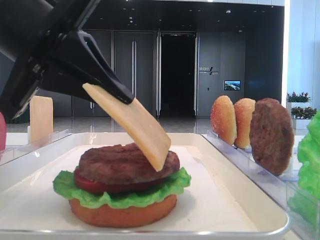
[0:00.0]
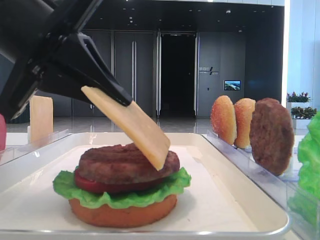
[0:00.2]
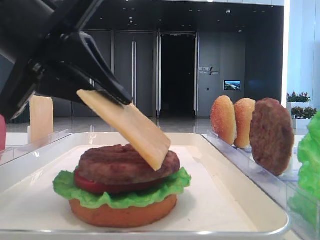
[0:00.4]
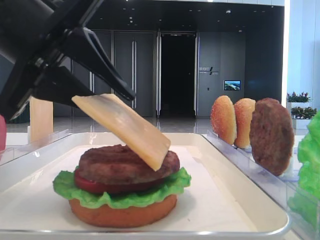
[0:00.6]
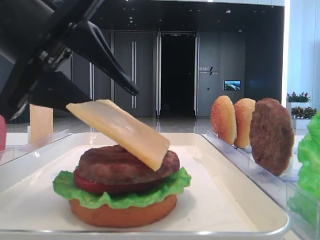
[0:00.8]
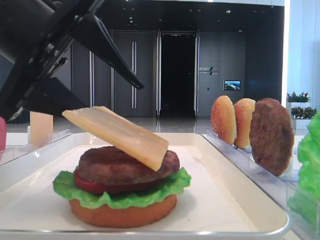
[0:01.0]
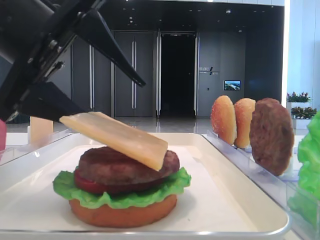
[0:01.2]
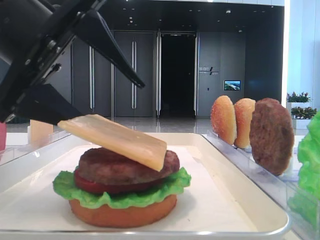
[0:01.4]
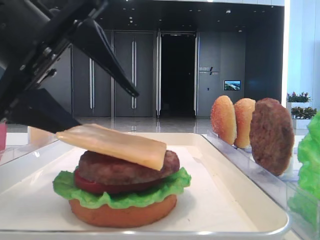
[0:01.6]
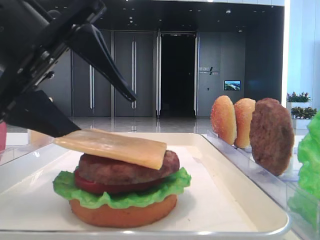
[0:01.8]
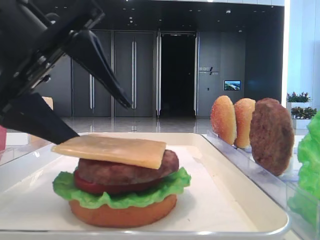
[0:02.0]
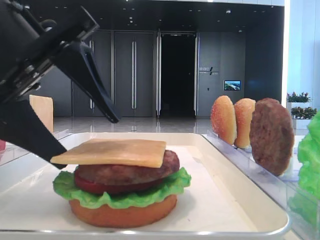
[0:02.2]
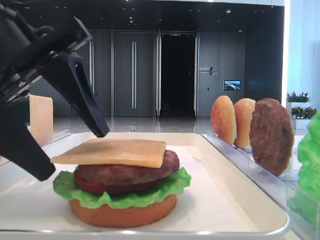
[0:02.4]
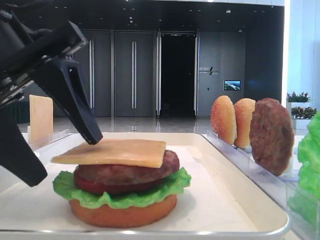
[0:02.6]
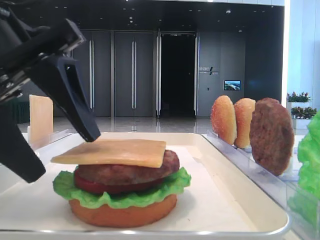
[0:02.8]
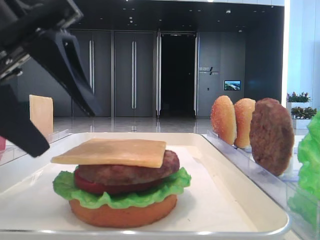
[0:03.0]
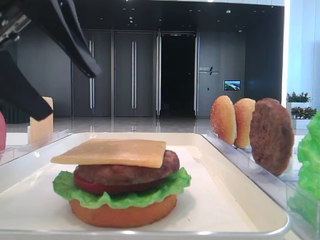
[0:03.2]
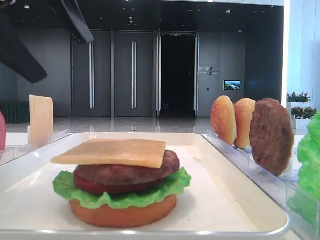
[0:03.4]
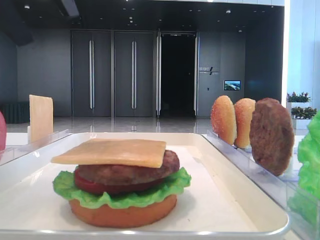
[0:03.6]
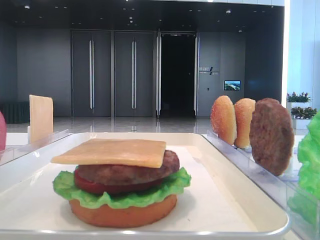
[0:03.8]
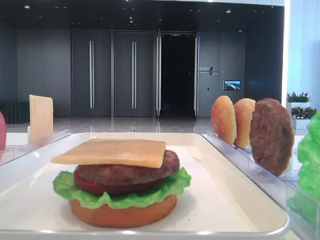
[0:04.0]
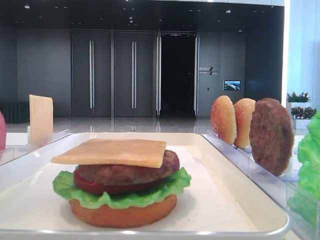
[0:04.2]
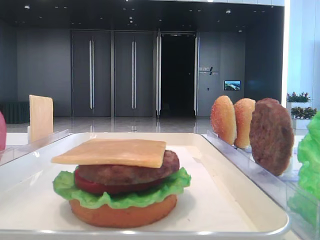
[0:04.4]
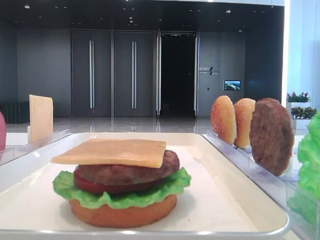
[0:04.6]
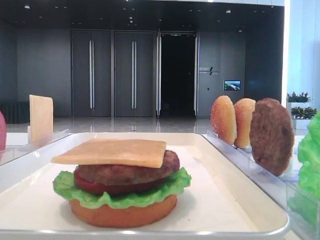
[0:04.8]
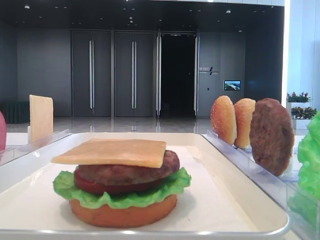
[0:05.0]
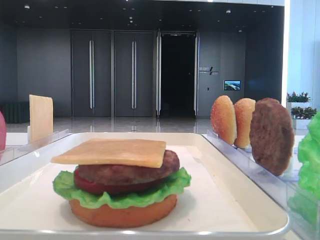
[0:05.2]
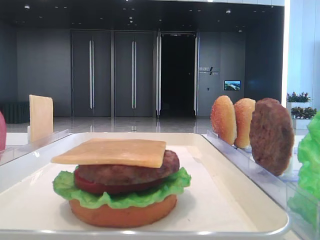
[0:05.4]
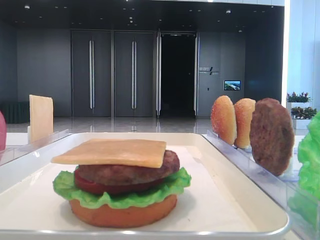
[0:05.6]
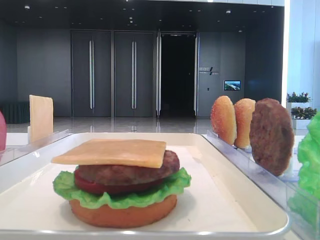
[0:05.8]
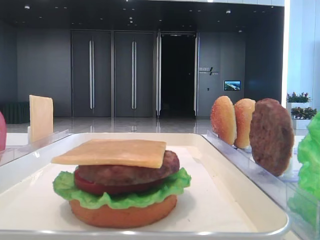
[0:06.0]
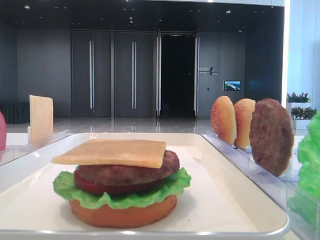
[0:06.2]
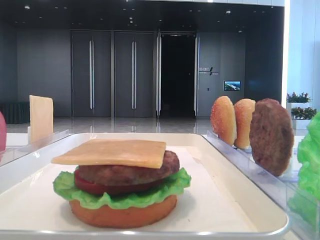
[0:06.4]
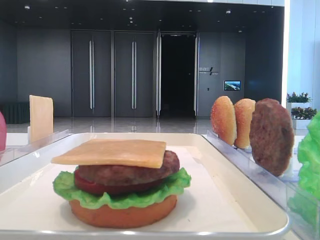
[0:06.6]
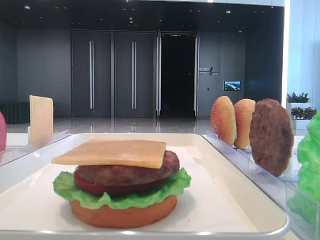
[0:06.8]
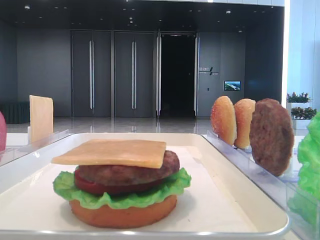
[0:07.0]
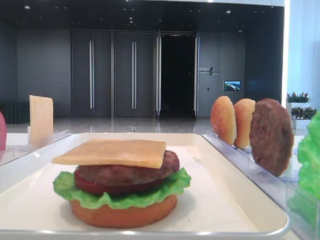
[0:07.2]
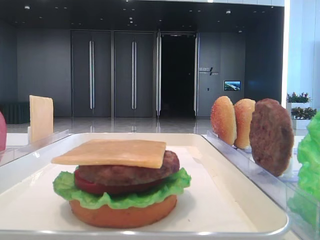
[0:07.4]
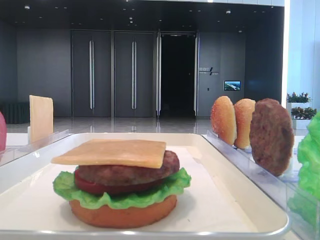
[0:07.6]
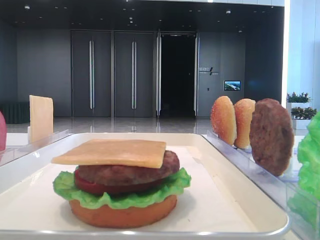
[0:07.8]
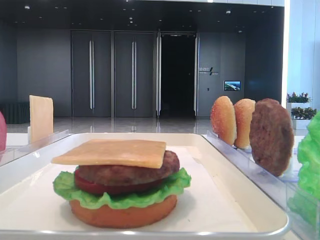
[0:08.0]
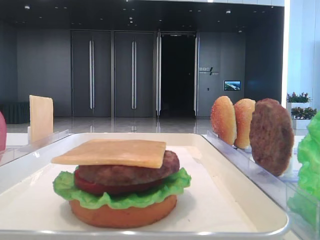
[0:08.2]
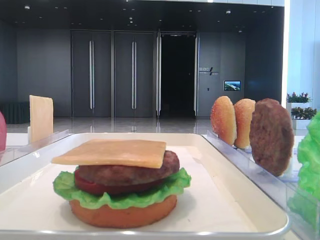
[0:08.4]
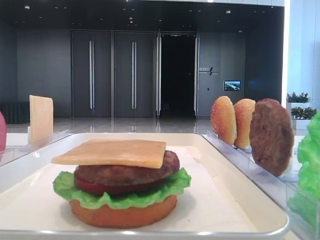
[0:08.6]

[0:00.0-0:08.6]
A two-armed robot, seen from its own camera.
Step, 0:00.0 to 0:02.2: Place the cheese slice on the patty with the left hand.
0:00.0 to 0:01.4: The left gripper opens its fingers.
0:01.4 to 0:02.8: The grippers stay close to where they were, moving slightly.
0:02.8 to 0:04.4: The left gripper goes about 20 cm upward.

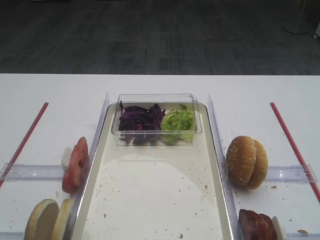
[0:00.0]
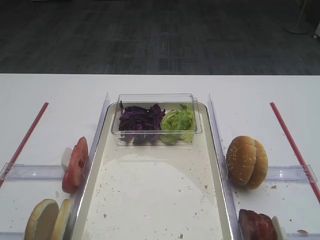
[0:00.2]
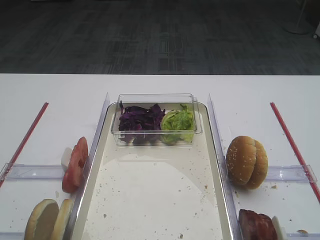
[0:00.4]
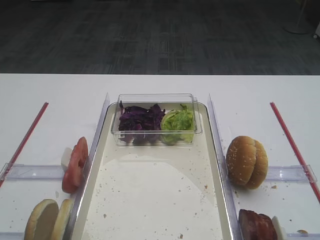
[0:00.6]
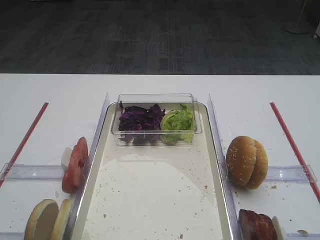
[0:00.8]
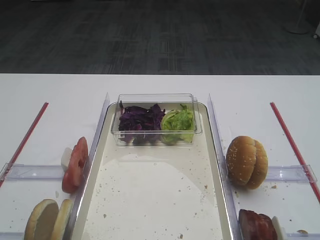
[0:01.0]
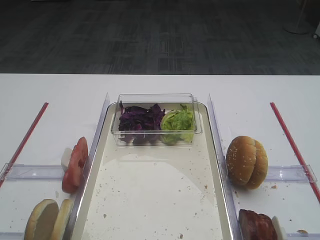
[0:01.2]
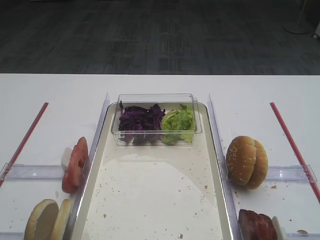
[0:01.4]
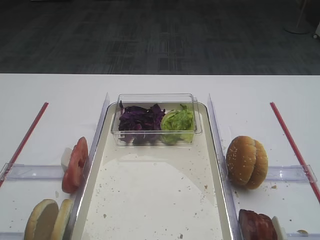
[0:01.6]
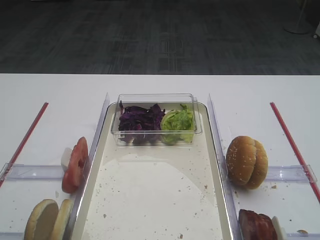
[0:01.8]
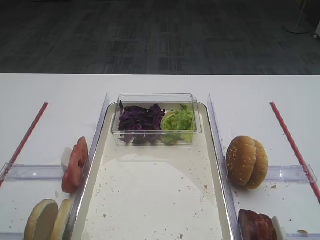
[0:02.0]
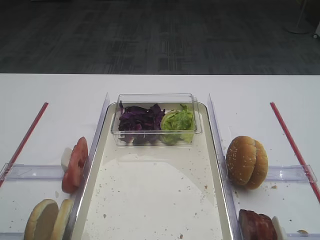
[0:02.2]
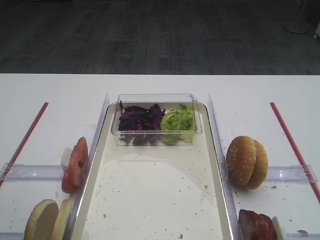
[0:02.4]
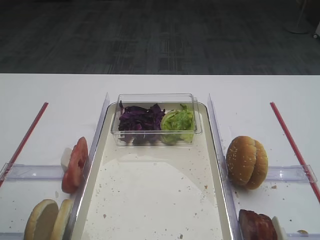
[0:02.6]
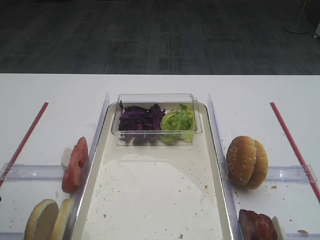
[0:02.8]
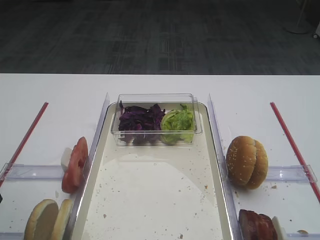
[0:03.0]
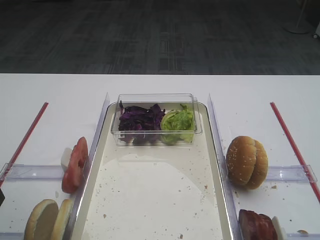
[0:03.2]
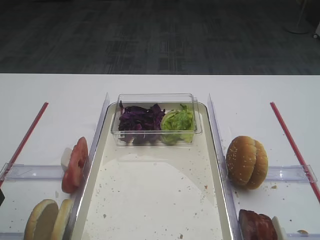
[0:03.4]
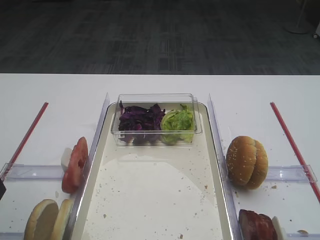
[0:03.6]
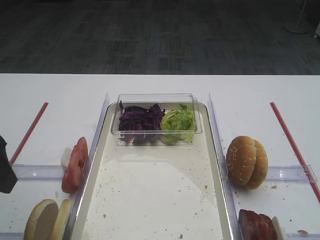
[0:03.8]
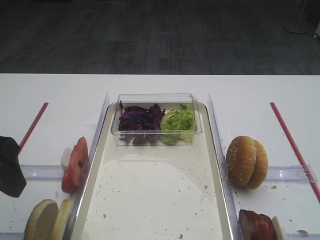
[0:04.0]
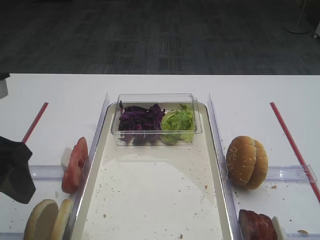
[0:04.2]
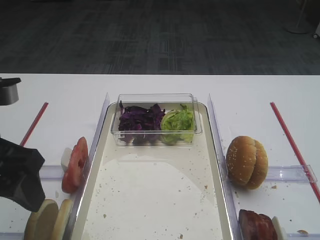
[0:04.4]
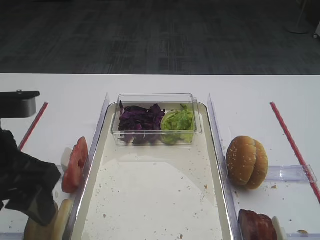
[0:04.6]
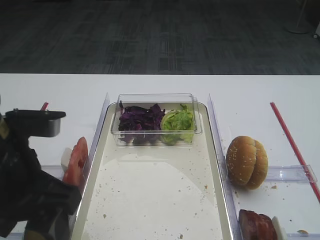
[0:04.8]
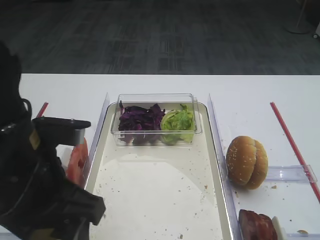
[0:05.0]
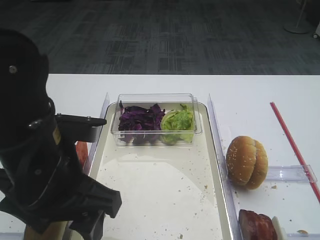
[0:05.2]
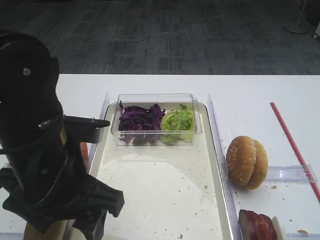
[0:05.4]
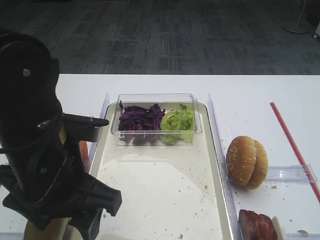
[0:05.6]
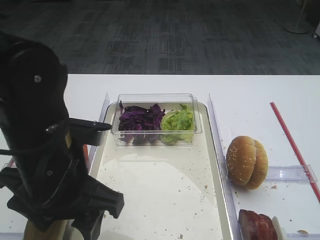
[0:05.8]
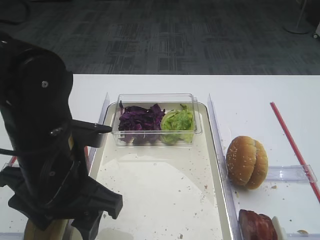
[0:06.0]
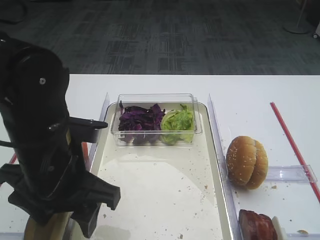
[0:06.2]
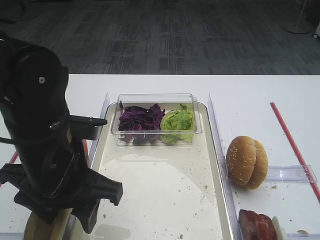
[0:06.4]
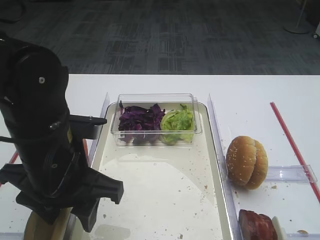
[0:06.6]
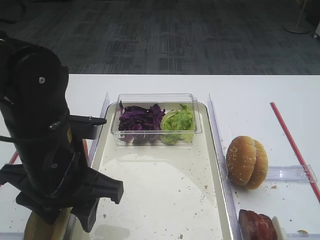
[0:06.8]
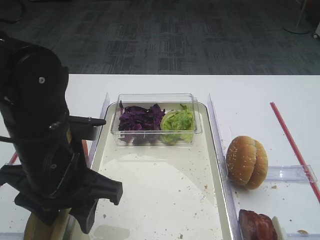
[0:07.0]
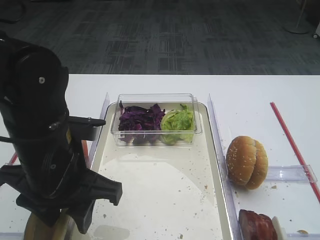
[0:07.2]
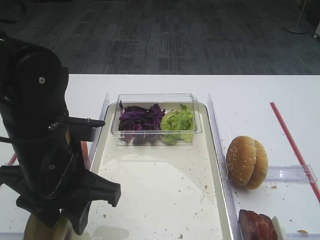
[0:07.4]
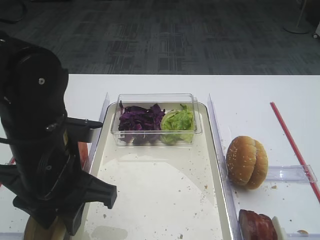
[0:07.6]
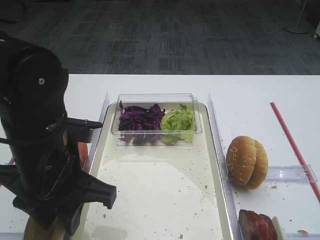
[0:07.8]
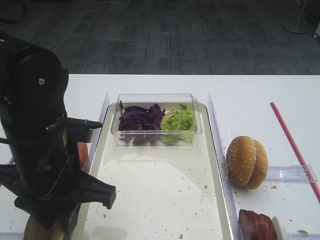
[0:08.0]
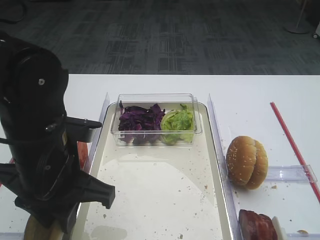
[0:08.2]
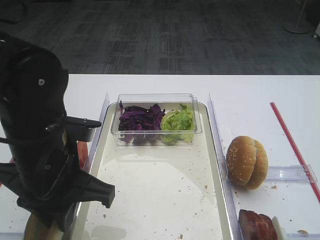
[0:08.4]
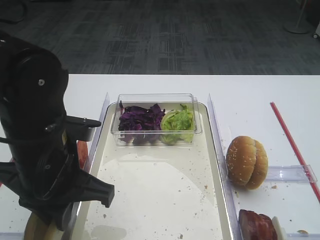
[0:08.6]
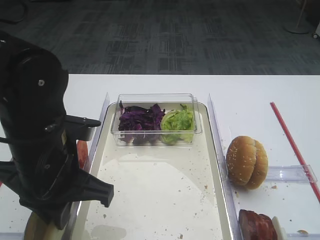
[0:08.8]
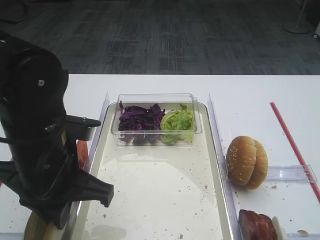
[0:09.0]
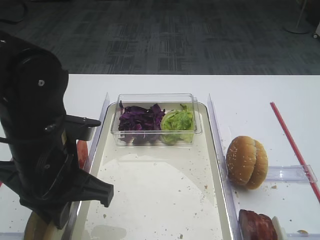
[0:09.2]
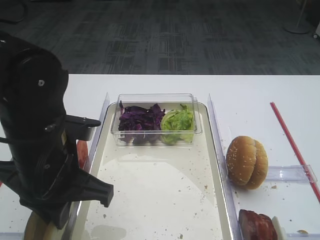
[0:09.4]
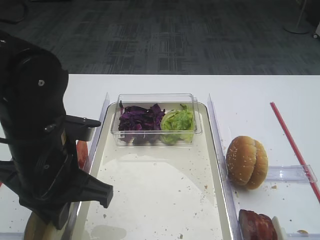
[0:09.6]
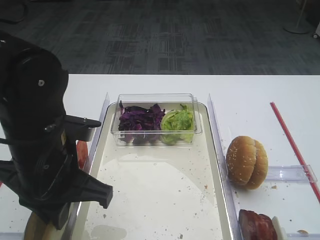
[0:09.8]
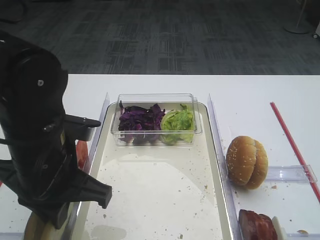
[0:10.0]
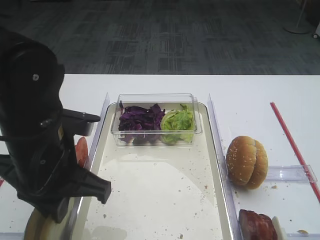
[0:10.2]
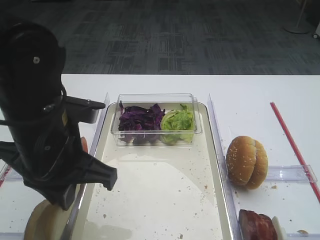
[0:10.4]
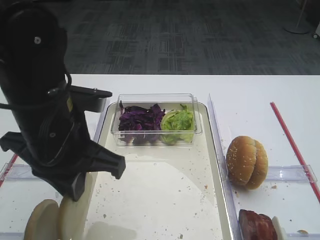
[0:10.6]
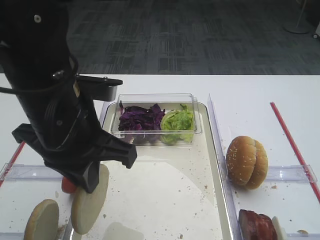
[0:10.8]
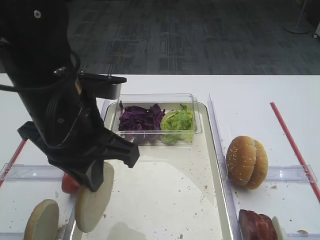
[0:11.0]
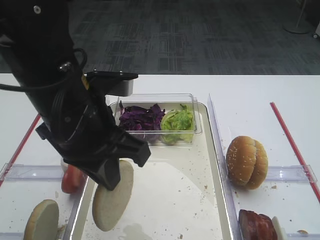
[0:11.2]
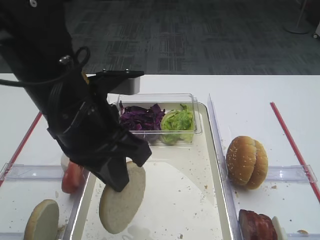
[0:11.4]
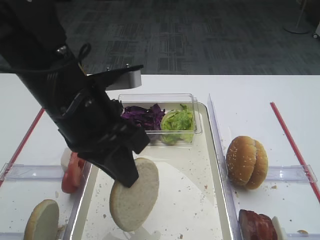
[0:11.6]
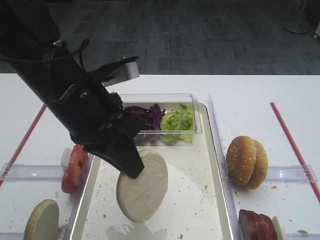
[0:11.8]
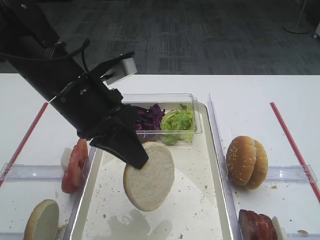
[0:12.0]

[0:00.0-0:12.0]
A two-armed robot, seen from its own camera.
Step, 0:00.0 to 0:10.4: Pick up the bread slice with the left gripper.
0:03.0 to 0:04.4: The left gripper moves to the right, roughly 5 cm.
0:04.4 to 0:06.0: The left gripper moves to the right and downward, roughly 10 cm.
0:06.0 to 0:07.6: The left gripper closes.
0:07.6 to 0:09.0: The left gripper closes its fingers.
0:09.0 to 0:10.4: The grippers move only a little.
0:10.4 to 0:12.0: The left gripper moves some 5 cm.

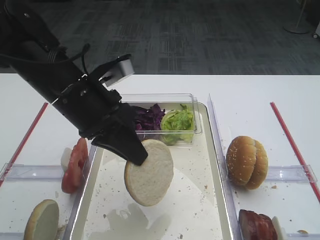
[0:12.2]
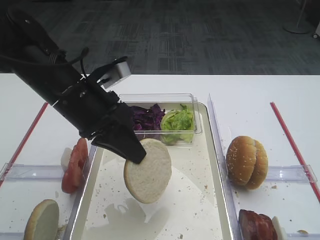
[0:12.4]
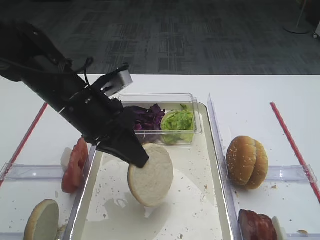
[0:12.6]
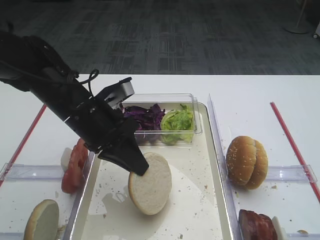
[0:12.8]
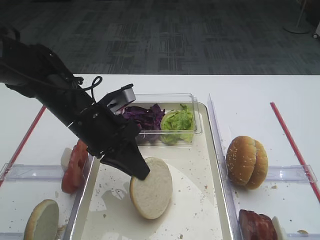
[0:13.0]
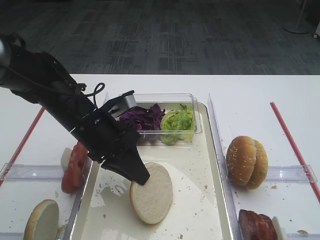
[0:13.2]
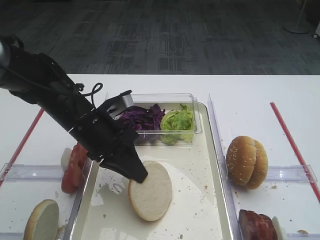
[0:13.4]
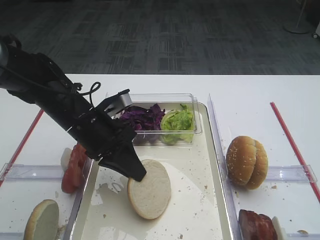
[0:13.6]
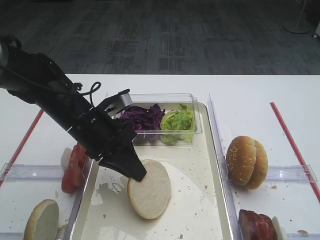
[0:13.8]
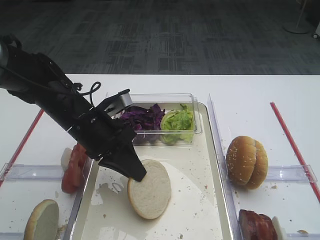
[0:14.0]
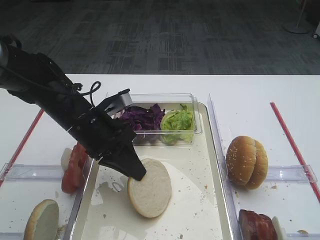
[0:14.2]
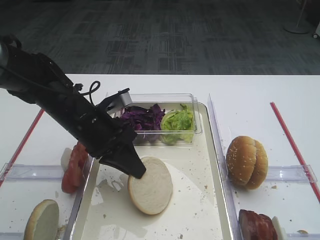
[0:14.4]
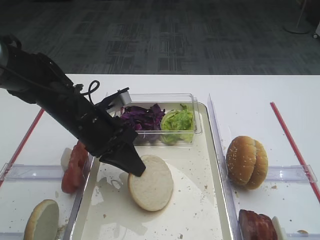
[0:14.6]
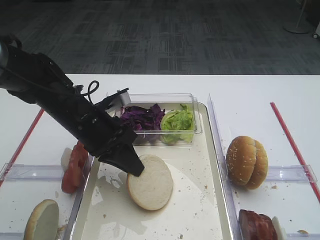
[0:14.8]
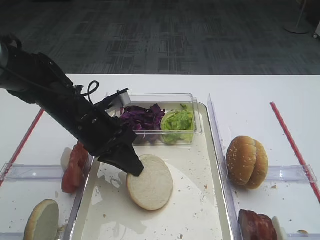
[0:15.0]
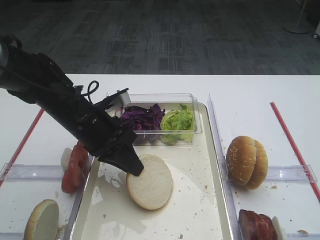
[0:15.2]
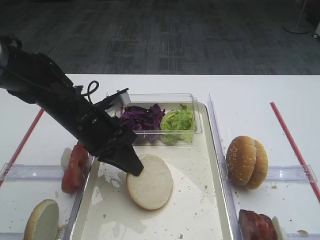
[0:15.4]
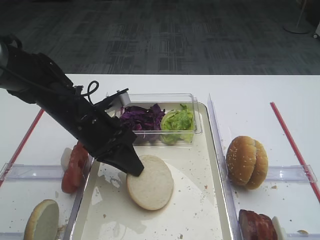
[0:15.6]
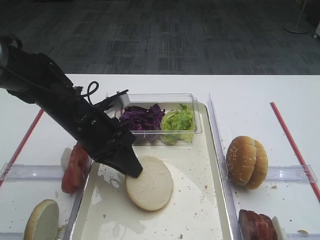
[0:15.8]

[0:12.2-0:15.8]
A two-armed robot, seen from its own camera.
0:12.2 to 0:14.0: The left gripper travels downward by some 10 cm.
0:14.0 to 0:15.8: There are only small adjustments of the grippers.
